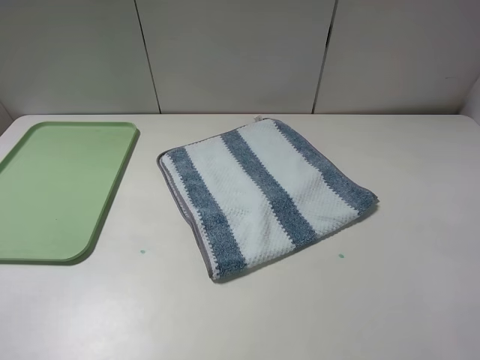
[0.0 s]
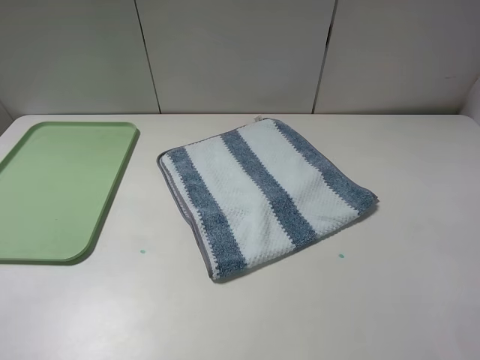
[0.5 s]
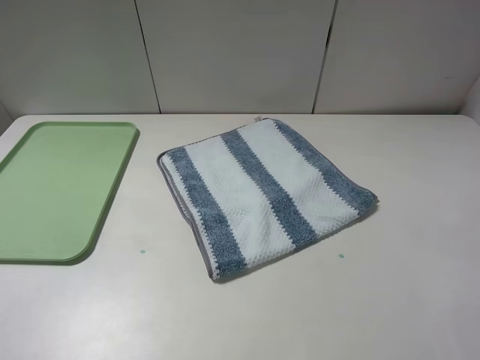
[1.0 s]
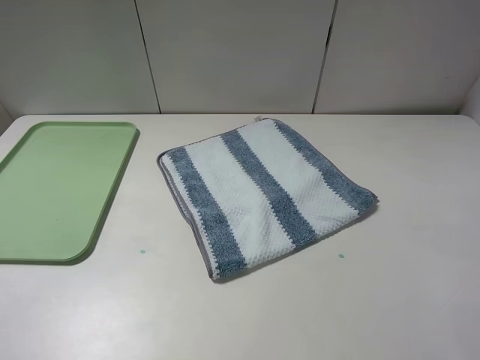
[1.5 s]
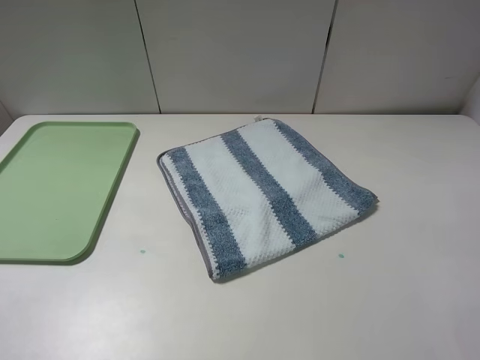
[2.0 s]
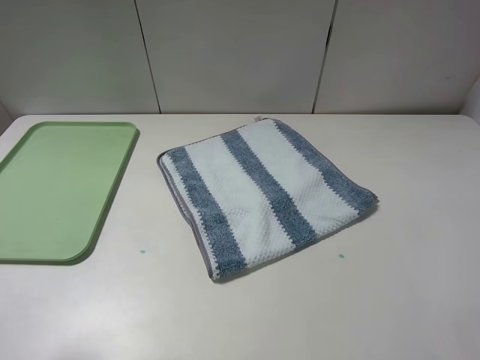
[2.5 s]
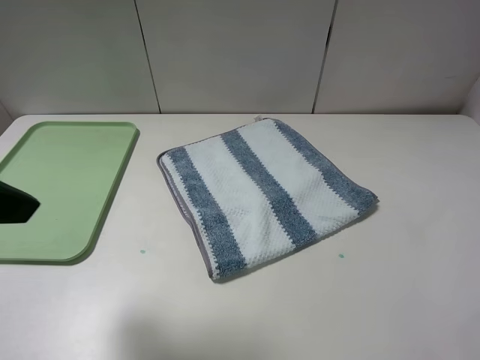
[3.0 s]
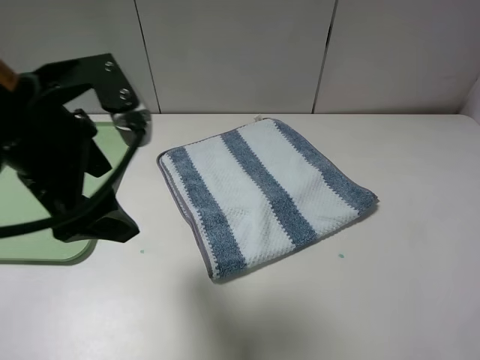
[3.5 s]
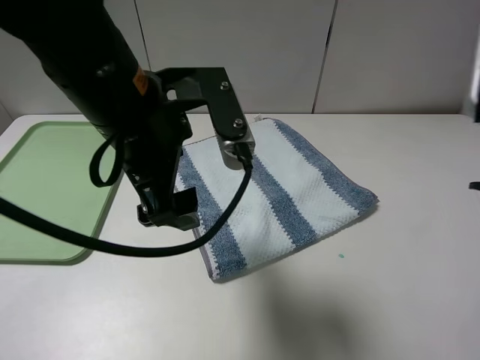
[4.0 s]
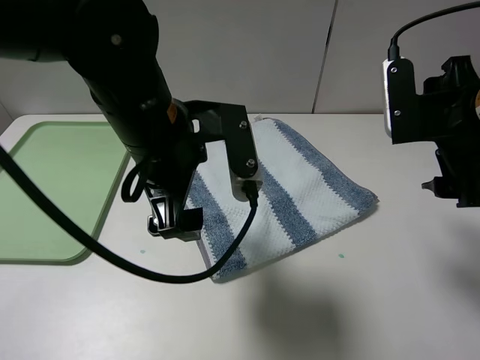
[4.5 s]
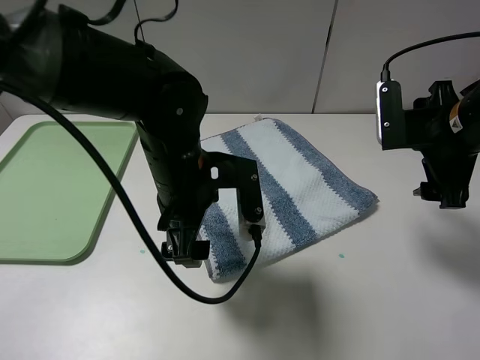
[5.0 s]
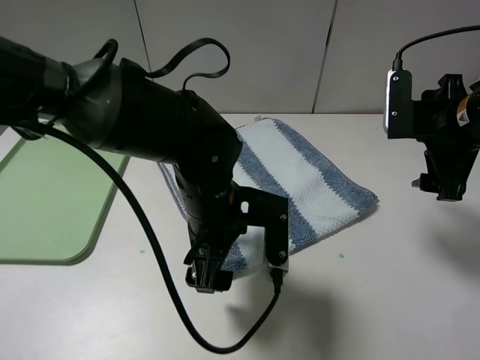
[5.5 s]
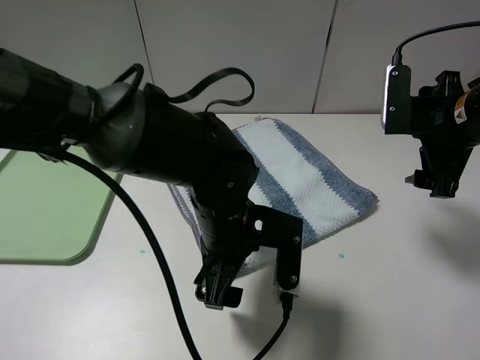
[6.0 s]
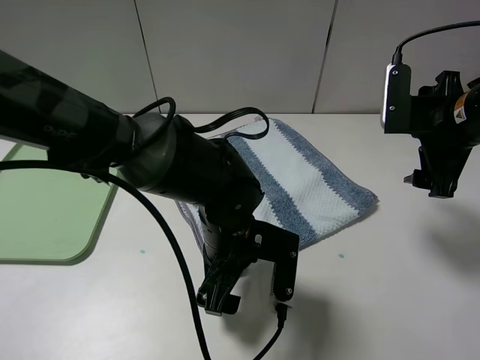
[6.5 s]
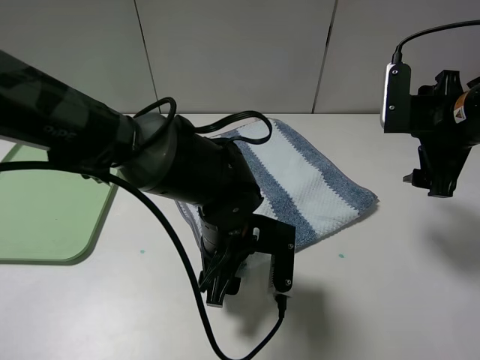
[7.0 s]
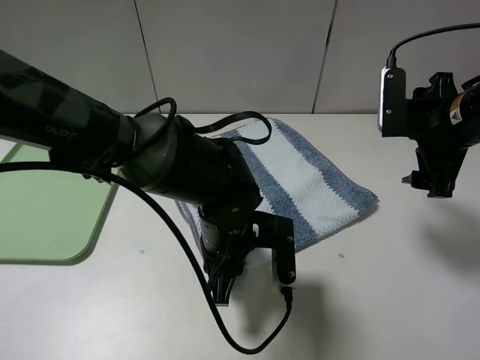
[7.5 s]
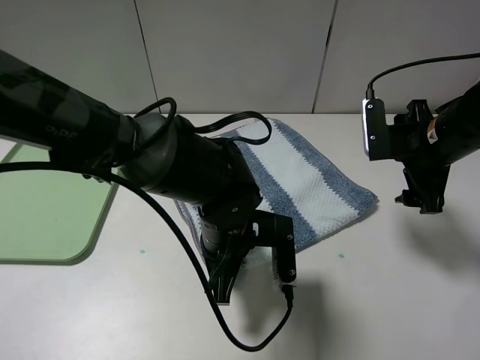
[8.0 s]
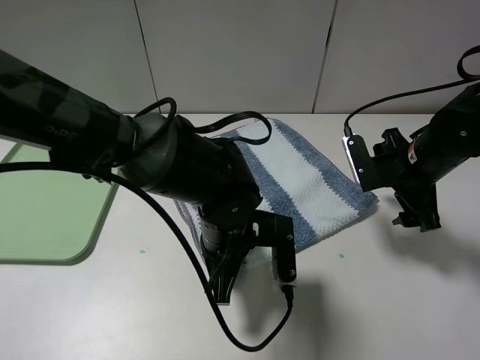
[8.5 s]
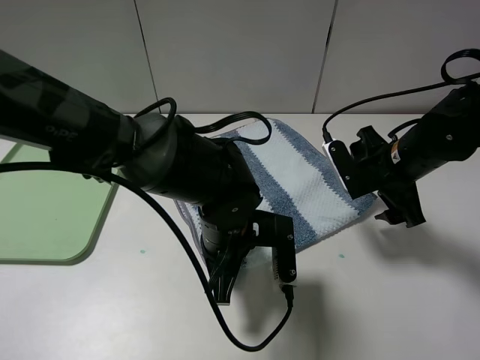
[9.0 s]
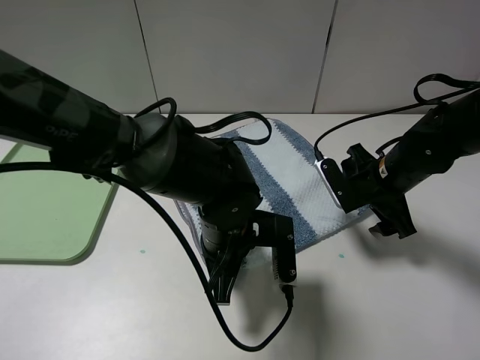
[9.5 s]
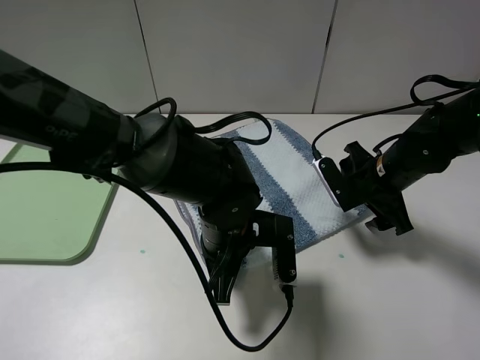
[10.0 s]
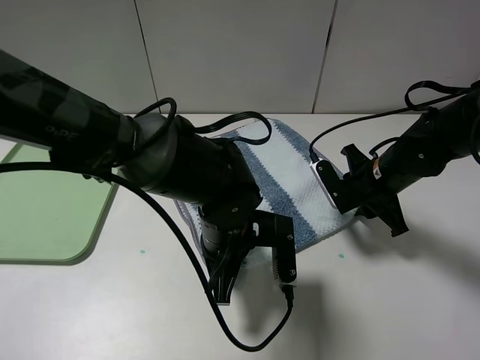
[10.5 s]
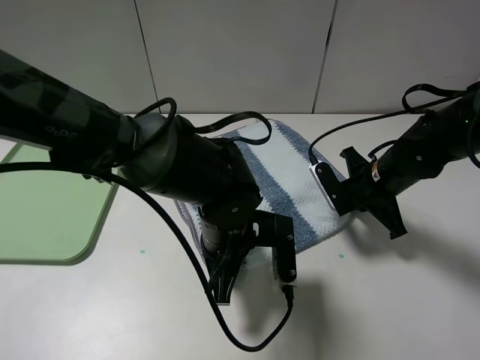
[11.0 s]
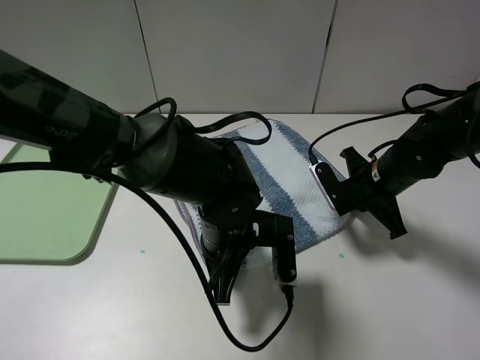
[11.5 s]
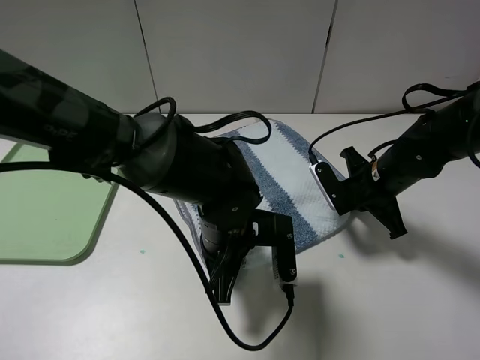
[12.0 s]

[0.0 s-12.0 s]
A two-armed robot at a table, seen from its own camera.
Step, 0.0 to 8.5 s: Grasp the blue white towel with the left gripper.
Step, 9.0 to 11.5 s: Grasp the blue white towel with the right gripper.
2.0 to 4.0 s: The right gripper shifts roughly 15 cm forward and to the left. The left gripper moves to the right and forward, approximately 30 cm.
4.0 to 6.0 s: The right gripper is displaced forward and downward by approximately 15 cm. The left gripper travels downward and to the right by some 15 cm.
6.0 to 8.0 s: The left gripper closes its fingers.
8.0 to 10.0 s: The right gripper goes approximately 10 cm downward.
10.0 to 12.0 s: The right gripper closes.

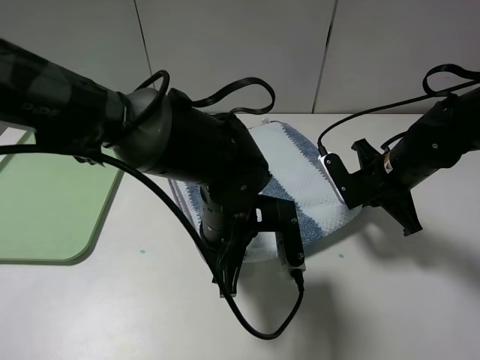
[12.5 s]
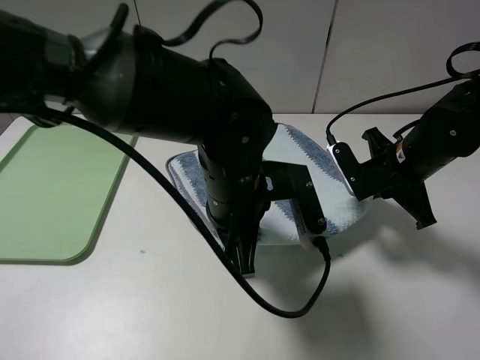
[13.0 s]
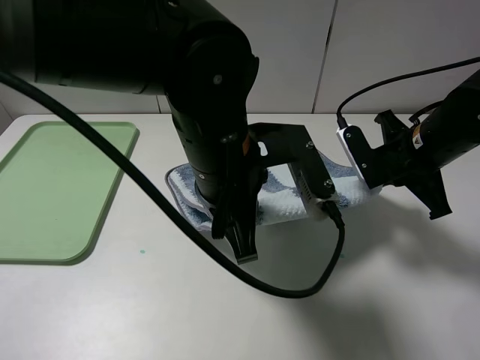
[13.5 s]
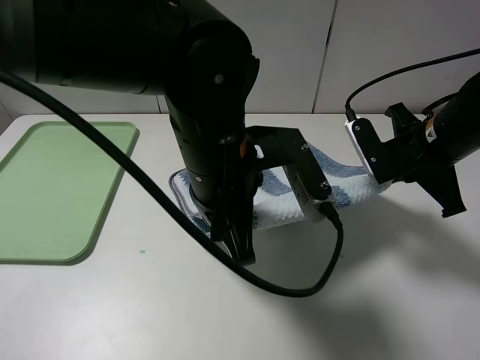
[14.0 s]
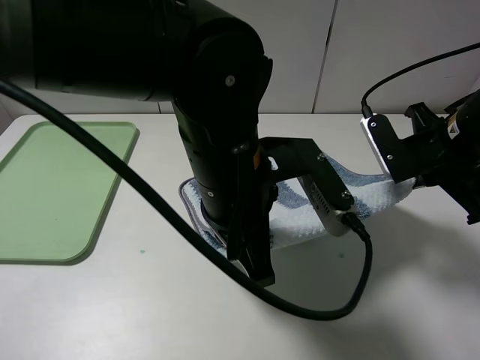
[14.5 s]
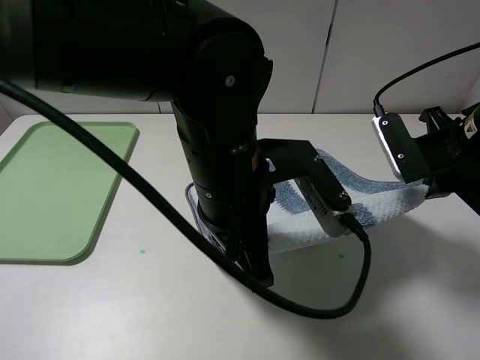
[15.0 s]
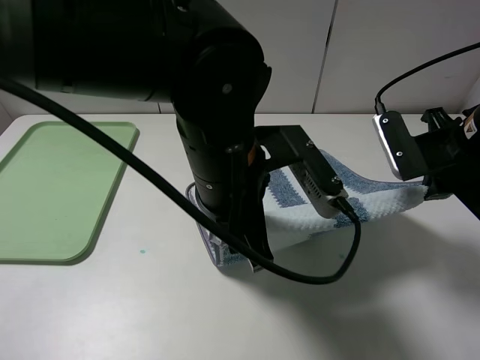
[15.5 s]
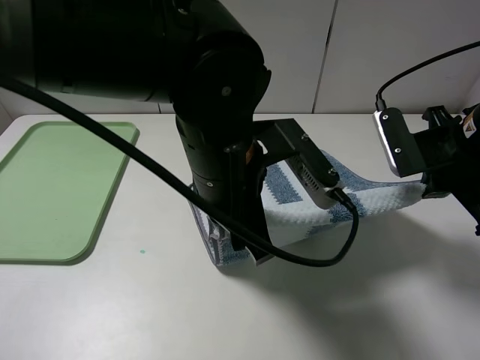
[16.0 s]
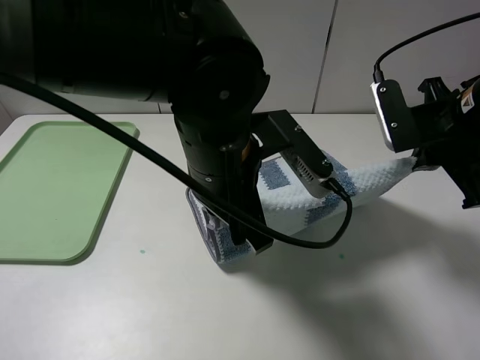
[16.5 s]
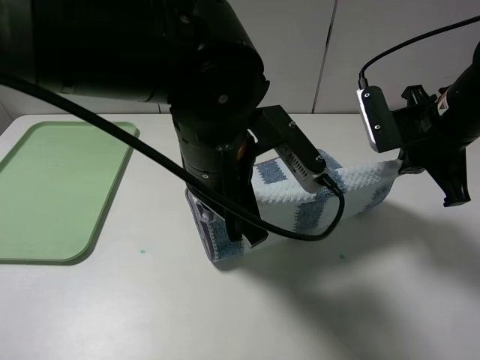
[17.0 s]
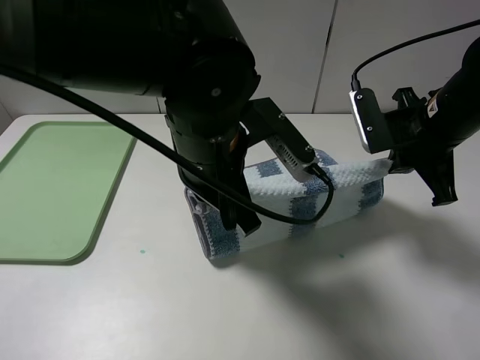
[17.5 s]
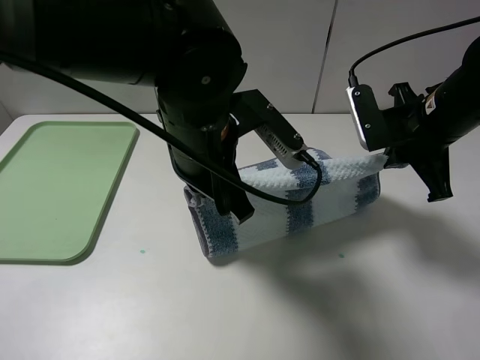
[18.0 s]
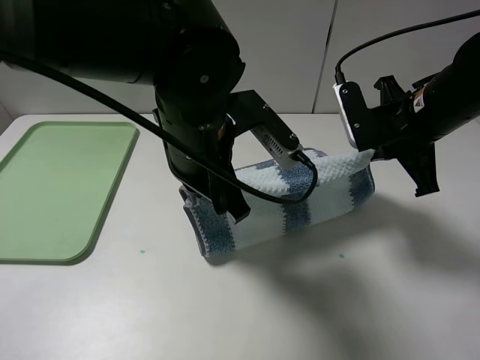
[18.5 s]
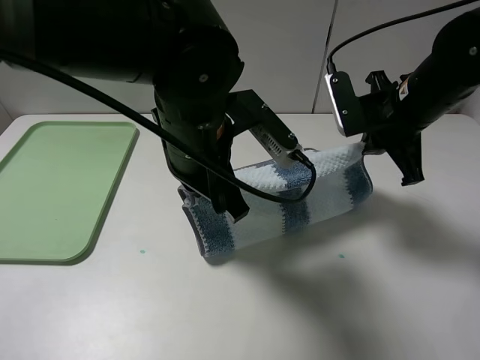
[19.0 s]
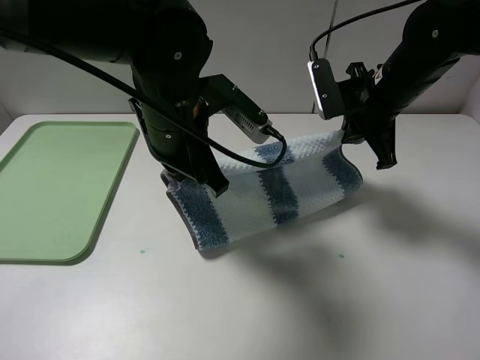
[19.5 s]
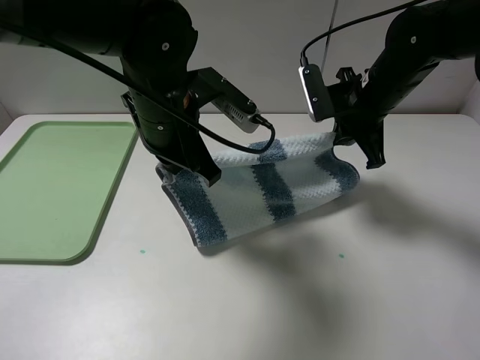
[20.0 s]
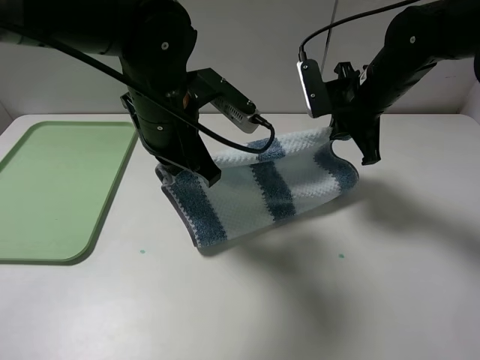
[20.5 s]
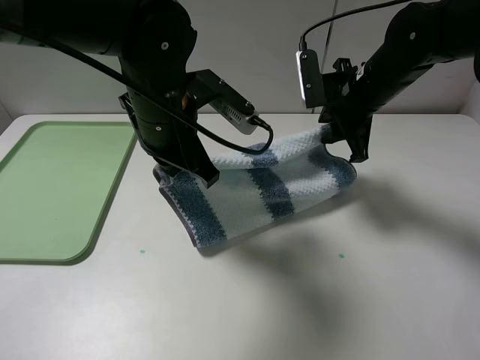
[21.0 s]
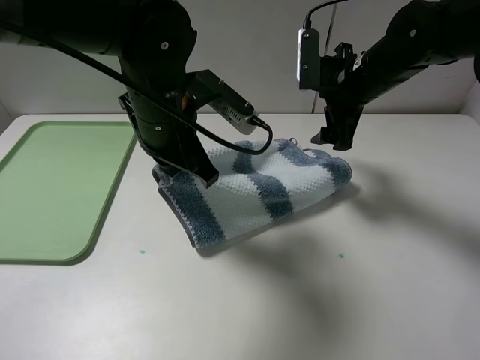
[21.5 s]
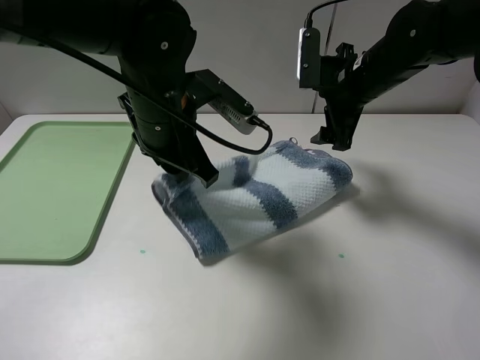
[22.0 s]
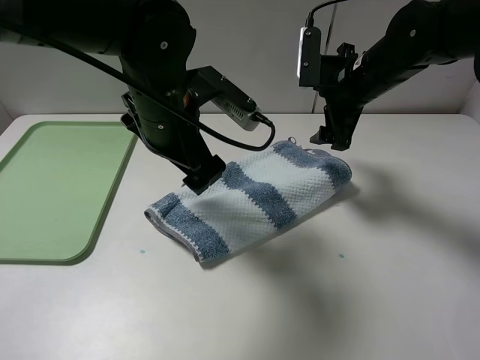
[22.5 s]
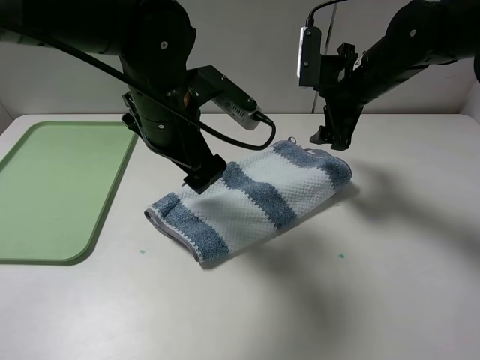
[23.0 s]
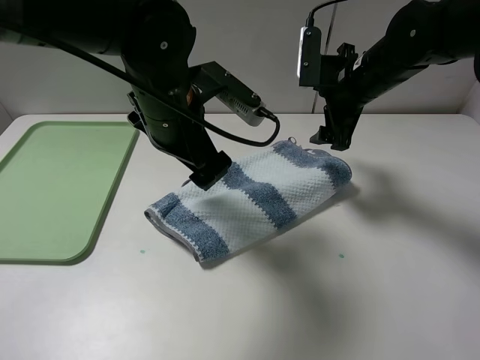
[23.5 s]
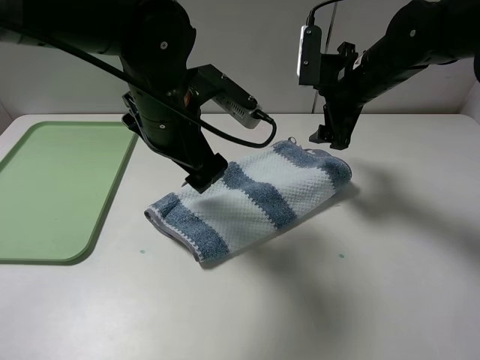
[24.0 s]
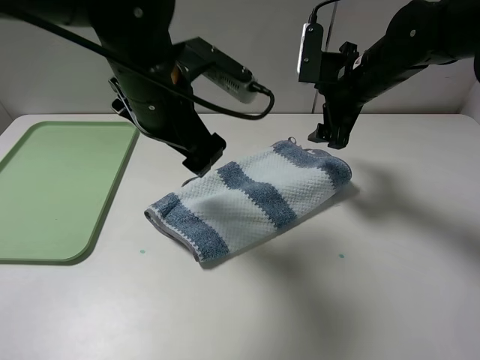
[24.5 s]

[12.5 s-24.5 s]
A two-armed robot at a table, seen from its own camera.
Step, 12.5 to 21.5 s: Fold the blue white towel upwards with the right gripper.
Step, 22.0 to 22.5 s: Fold the blue white towel upwards with the left gripper.
12.5 to 14.5 s: Both grippers move upward, approximately 10 cm.
18.5 to 20.5 s: The right gripper heads forward, covering about 5 cm; the left gripper shifts by approximately 5 cm.
20.5 to 22.5 s: The left gripper opens its fingers, while the right gripper opens.
22.5 to 24.5 s: The grippers stay close to where they were, moving slightly.

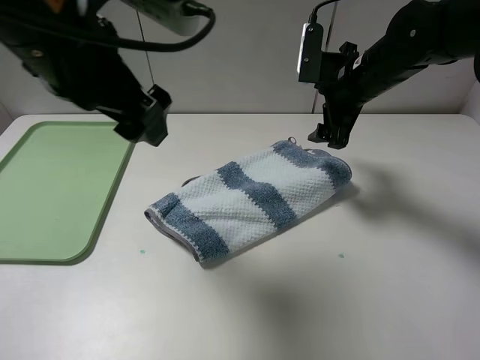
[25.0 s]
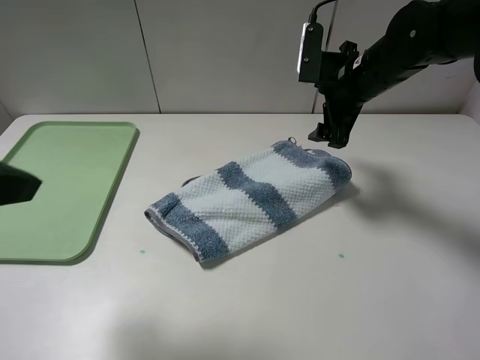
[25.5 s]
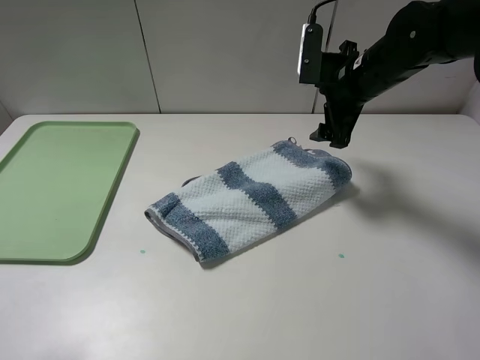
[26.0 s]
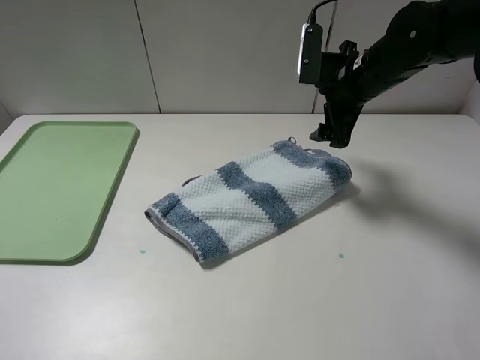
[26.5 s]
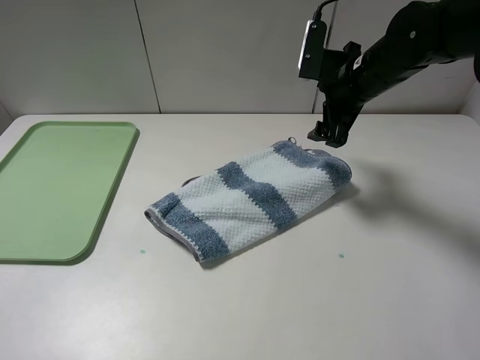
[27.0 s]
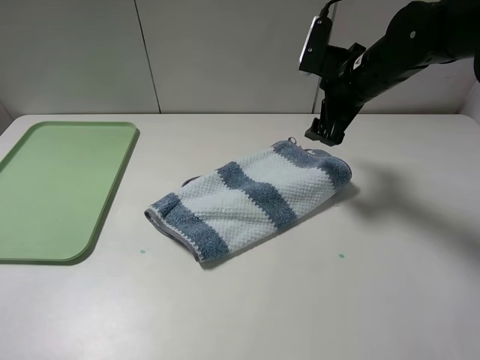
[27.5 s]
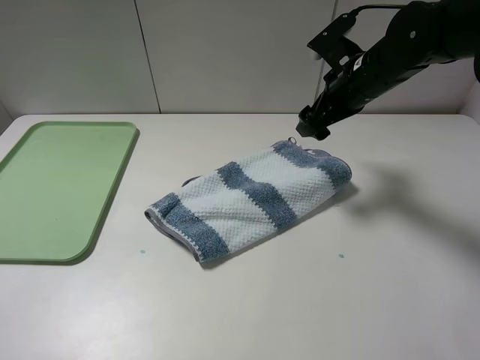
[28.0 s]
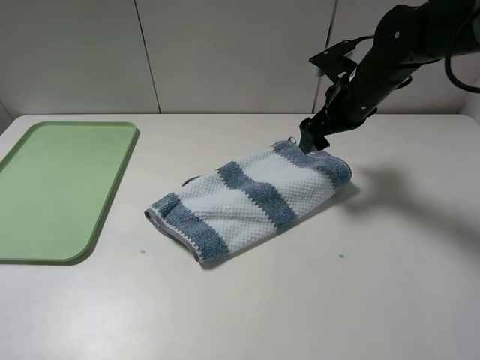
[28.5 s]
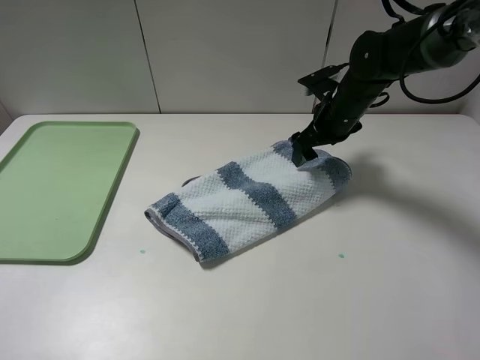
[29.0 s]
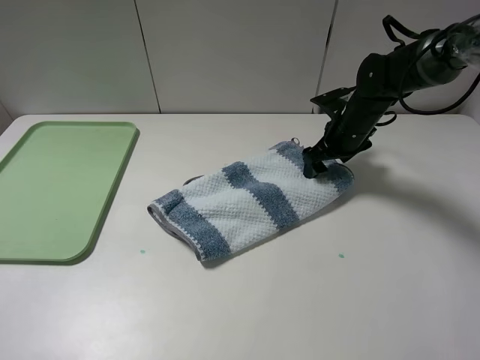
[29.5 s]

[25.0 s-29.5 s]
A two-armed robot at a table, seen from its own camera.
25.0 to 27.0 s: The left gripper moves backward and to the left, about 25 cm.
27.0 to 29.5 s: The right gripper goes roughly 10 cm downward.
